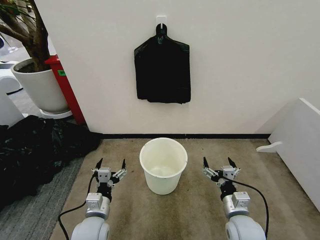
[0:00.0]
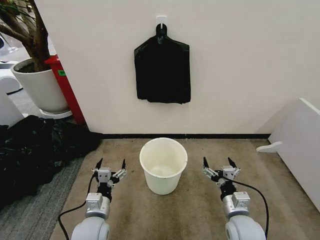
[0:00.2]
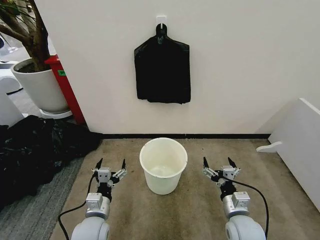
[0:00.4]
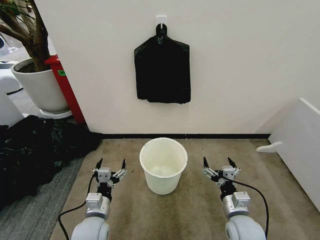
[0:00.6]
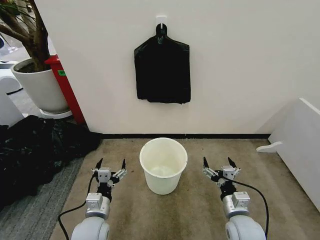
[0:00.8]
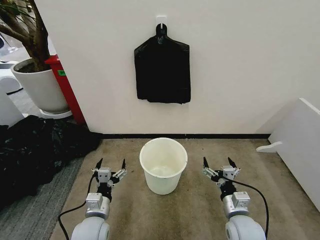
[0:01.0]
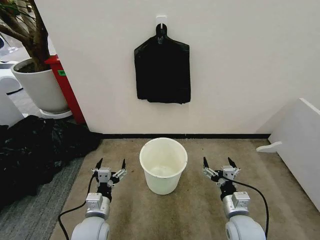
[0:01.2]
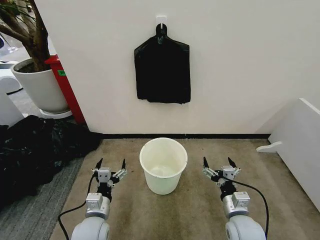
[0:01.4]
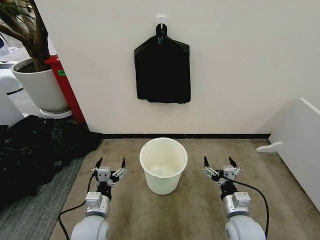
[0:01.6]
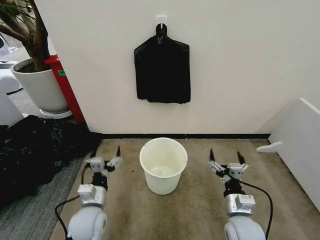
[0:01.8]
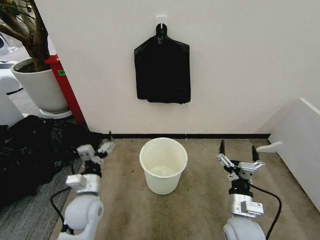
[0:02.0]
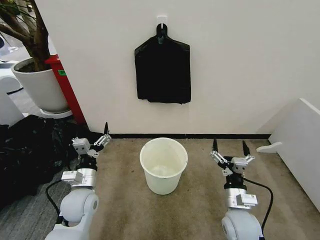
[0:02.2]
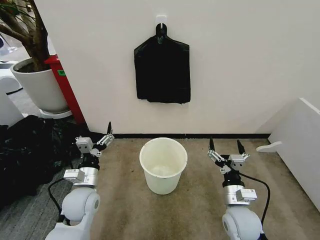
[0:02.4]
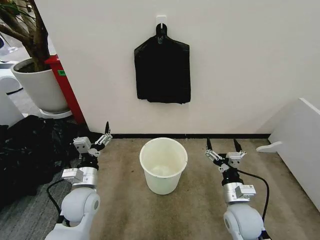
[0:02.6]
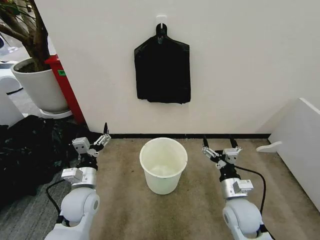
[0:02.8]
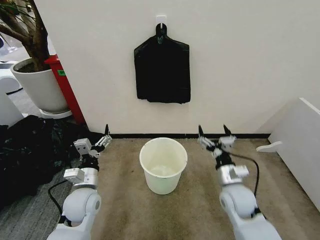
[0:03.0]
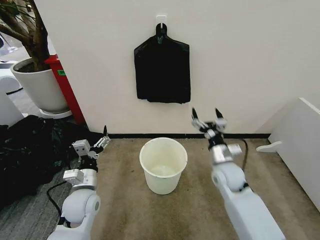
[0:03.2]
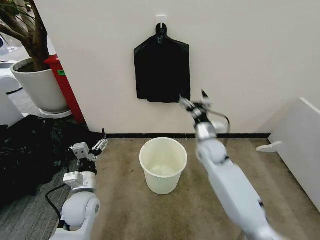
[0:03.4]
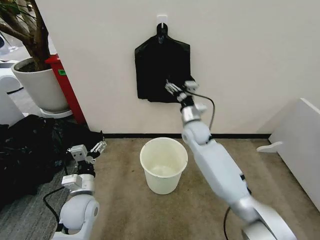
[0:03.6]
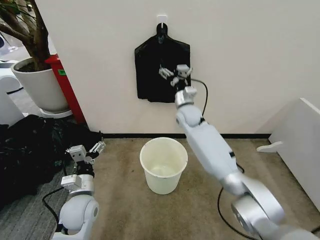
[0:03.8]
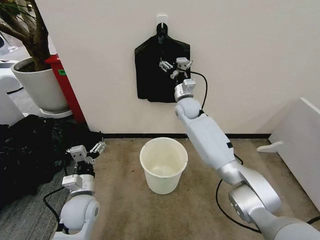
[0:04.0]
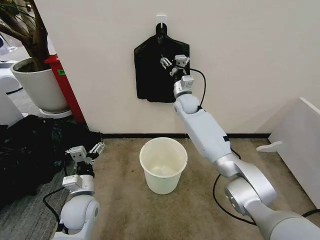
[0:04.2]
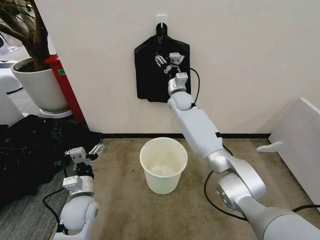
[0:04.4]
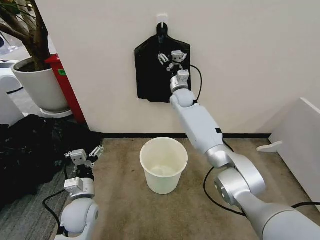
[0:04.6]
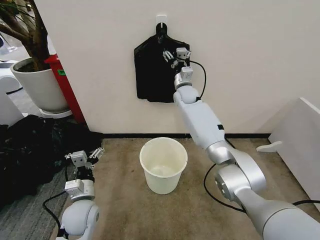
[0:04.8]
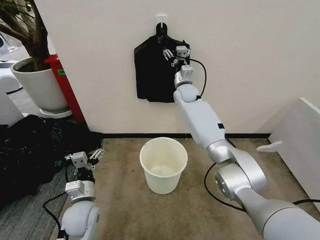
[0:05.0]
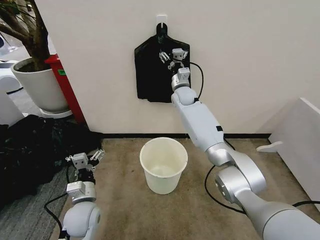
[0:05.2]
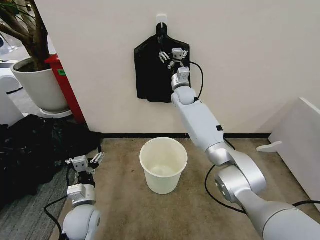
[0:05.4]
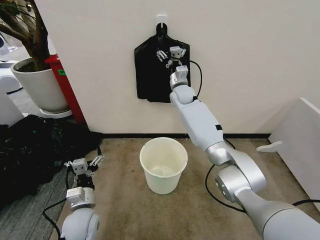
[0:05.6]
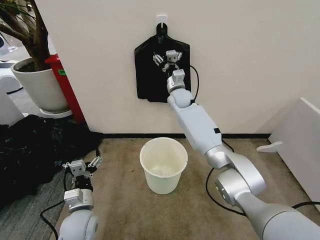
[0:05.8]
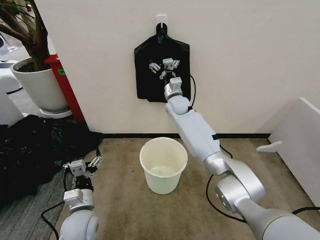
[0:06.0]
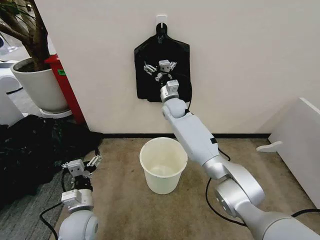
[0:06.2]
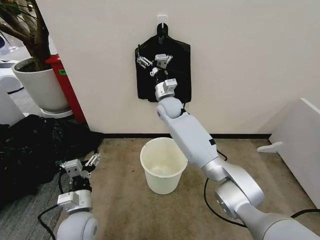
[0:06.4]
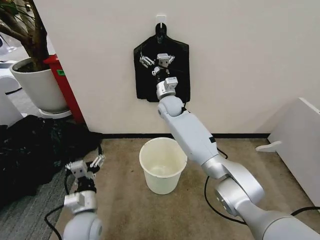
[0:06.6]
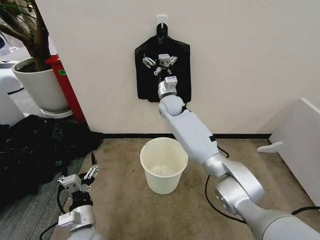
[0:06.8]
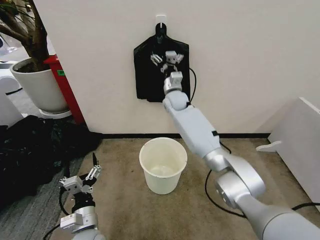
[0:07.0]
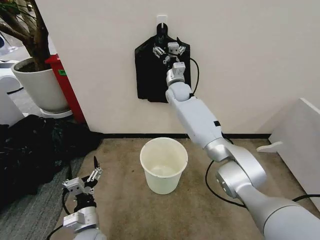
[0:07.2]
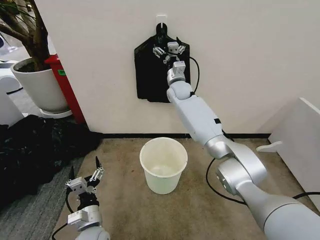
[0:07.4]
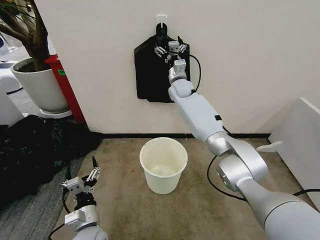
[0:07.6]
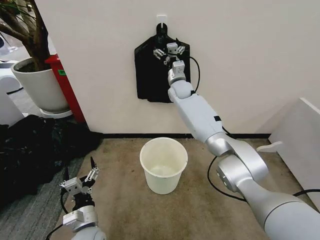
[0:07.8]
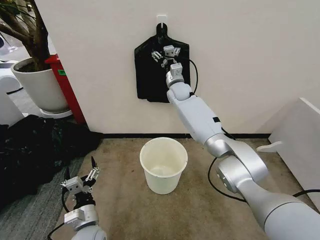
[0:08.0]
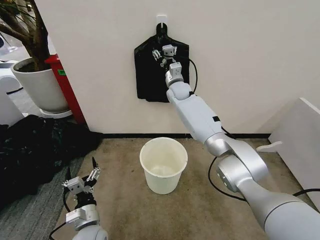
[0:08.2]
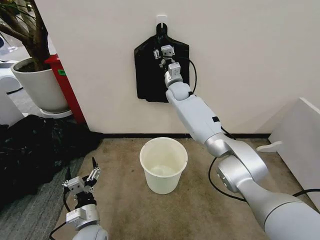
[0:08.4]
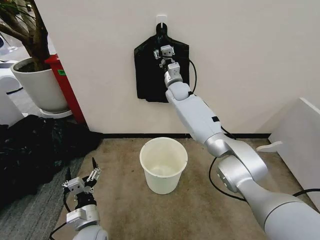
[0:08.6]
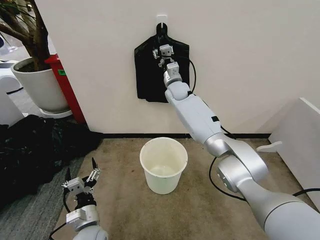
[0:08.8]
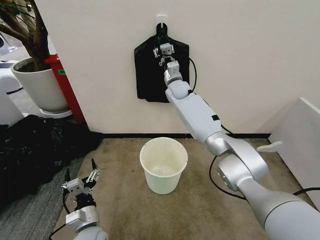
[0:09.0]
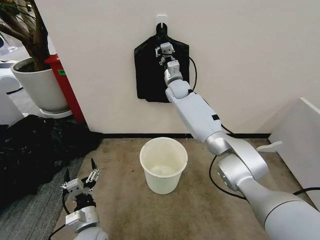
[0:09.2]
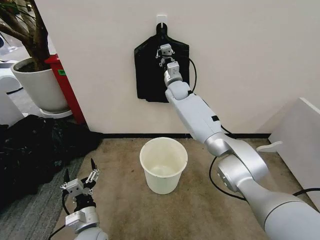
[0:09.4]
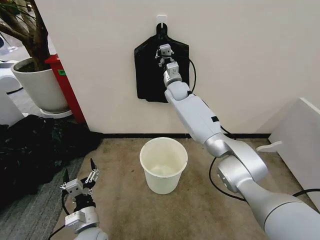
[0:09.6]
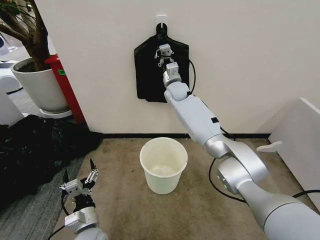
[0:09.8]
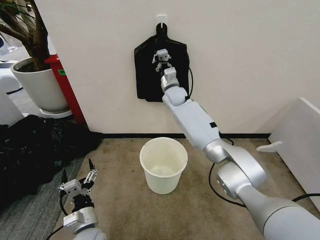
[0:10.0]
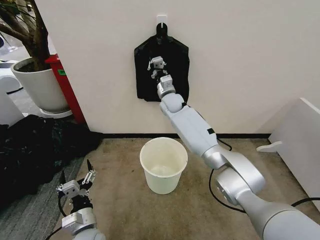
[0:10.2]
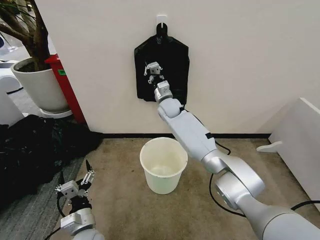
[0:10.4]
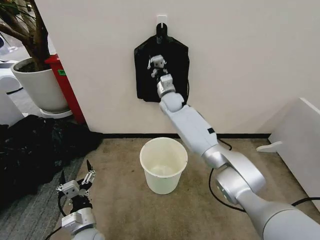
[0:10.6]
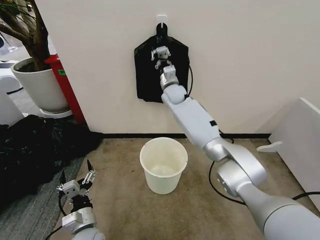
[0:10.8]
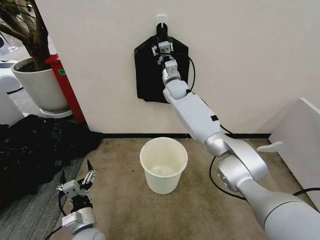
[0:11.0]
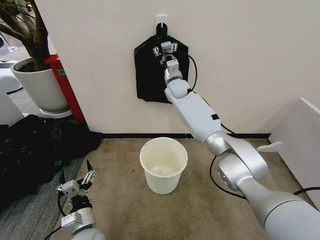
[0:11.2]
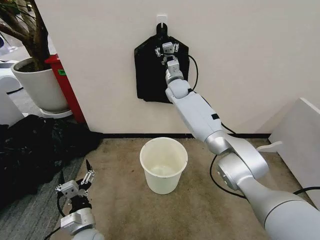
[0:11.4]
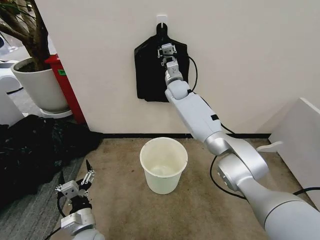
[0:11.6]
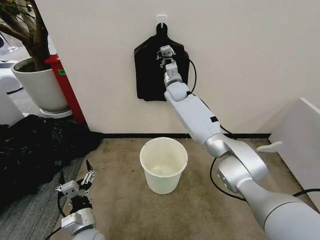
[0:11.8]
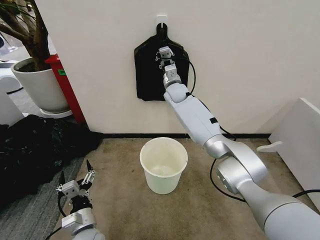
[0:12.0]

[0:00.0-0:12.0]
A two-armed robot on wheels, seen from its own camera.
Task of the whole recording: Place the garbage bag over the trash bin.
0:01.6 to 0:03.0: The right gripper heads forward, covering approximately 10 cm. Meanwhile the left gripper goes approximately 10 cm forward and upward.
0:03.0 to 0:04.4: The right gripper is displaced forward, to the left and upward by approximately 40 cm.
0:04.4 to 0:06.0: There are only small adjustments of the grippers.
0:06.0 to 0:07.6: The right gripper heads upward, covering some 5 cm. The left gripper moves about 5 cm.
0:07.6 to 0:09.0: The right gripper closes its fingers.
0:09.0 to 0:10.4: The right gripper heads downward, covering approximately 5 cm, and closes its fingers.
0:10.4 to 0:12.0: The right gripper changes place by about 5 cm, and opens and closes again.

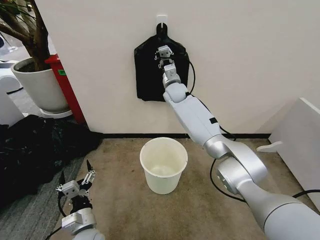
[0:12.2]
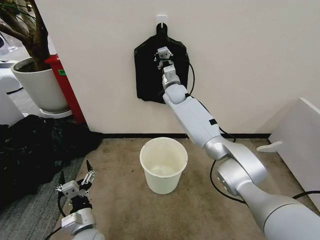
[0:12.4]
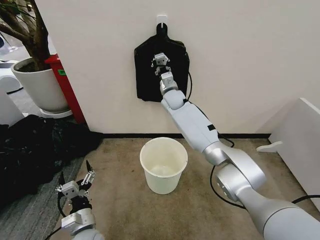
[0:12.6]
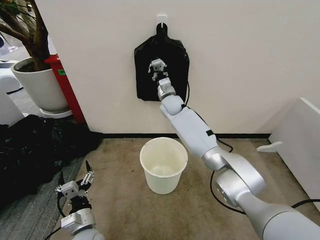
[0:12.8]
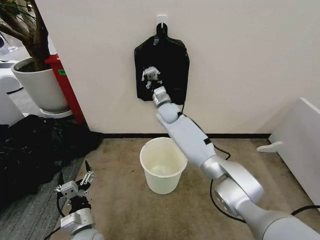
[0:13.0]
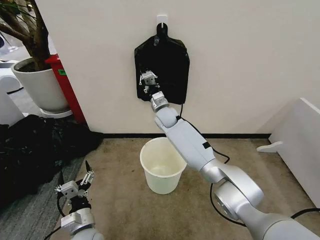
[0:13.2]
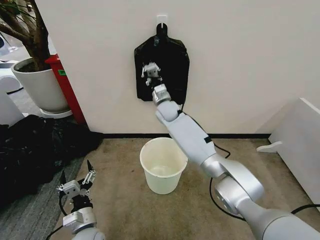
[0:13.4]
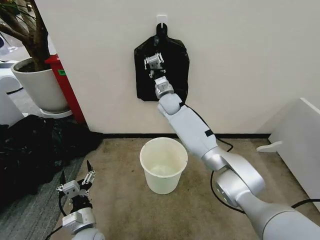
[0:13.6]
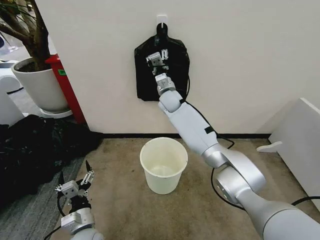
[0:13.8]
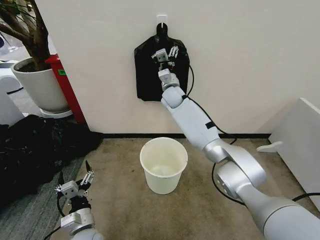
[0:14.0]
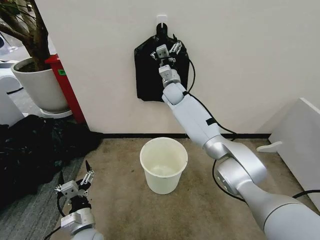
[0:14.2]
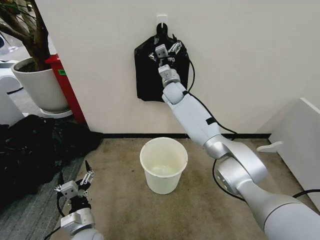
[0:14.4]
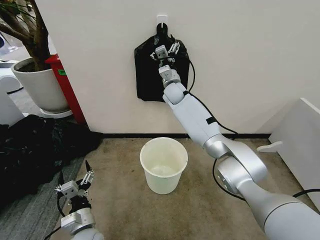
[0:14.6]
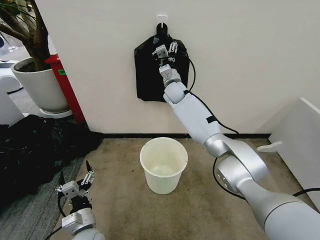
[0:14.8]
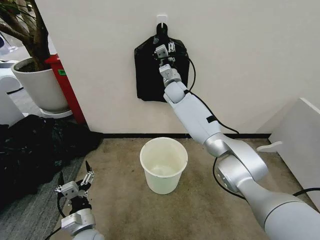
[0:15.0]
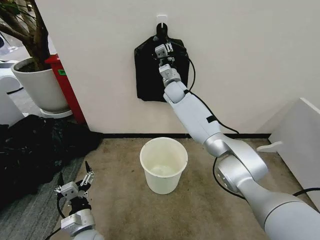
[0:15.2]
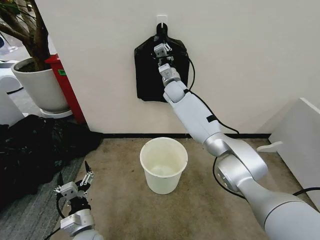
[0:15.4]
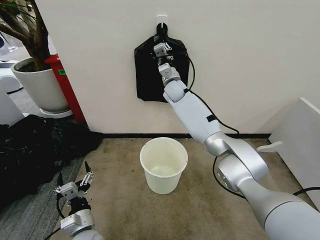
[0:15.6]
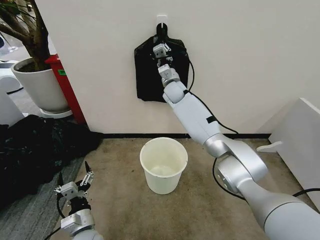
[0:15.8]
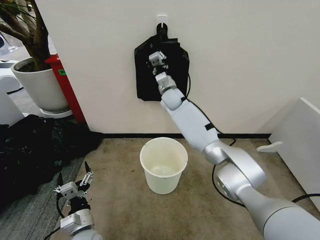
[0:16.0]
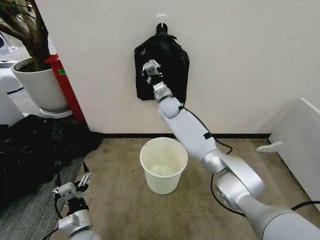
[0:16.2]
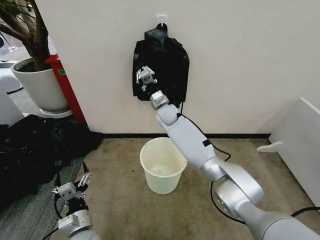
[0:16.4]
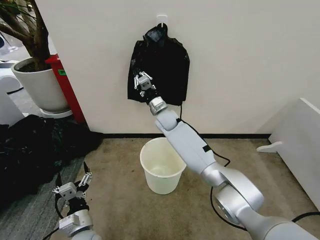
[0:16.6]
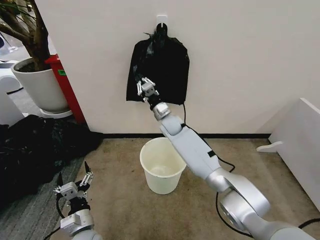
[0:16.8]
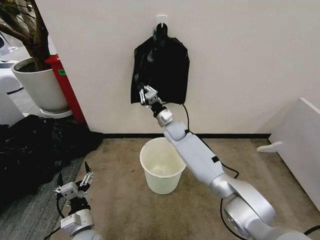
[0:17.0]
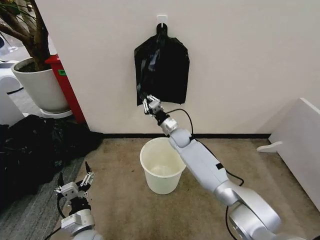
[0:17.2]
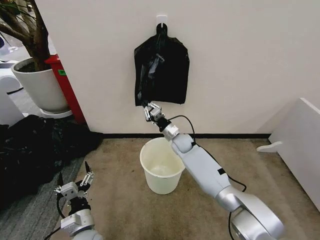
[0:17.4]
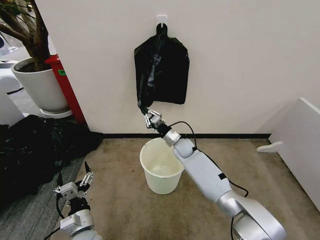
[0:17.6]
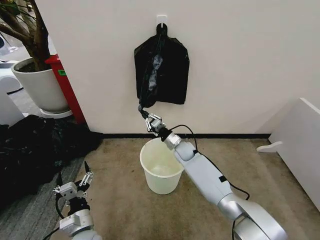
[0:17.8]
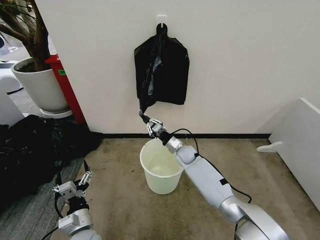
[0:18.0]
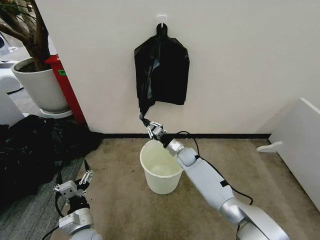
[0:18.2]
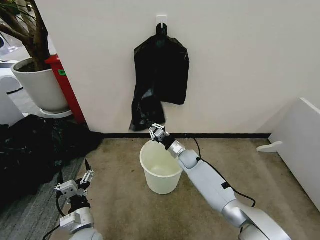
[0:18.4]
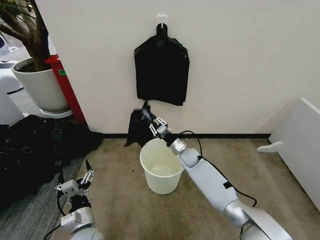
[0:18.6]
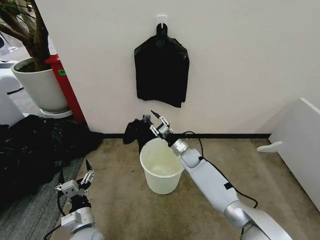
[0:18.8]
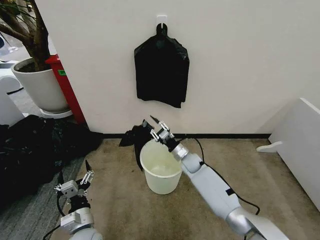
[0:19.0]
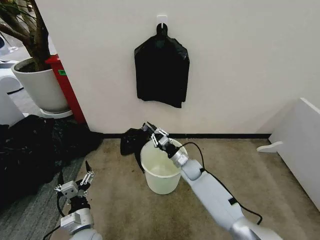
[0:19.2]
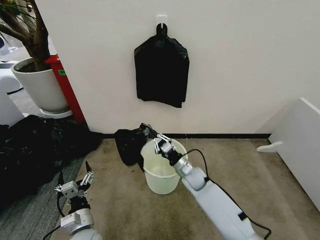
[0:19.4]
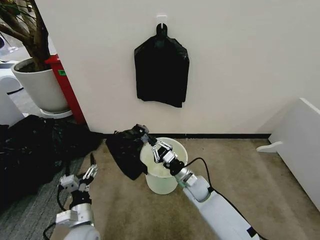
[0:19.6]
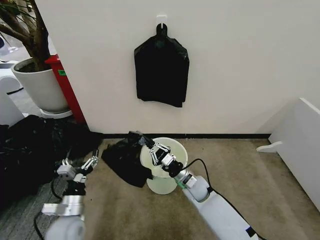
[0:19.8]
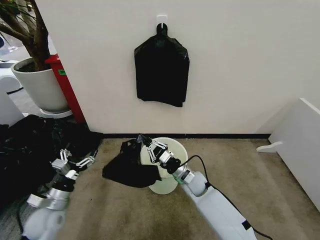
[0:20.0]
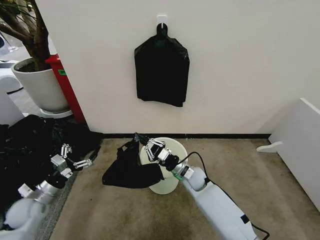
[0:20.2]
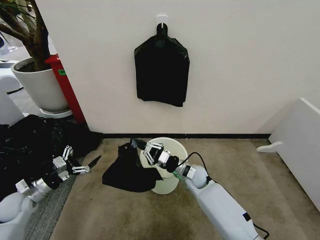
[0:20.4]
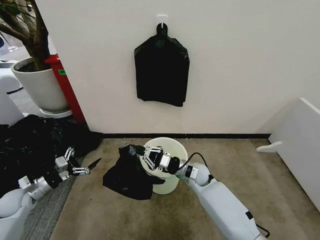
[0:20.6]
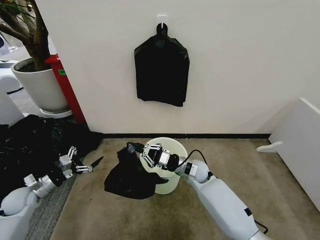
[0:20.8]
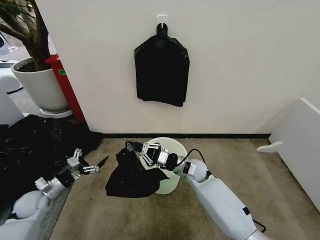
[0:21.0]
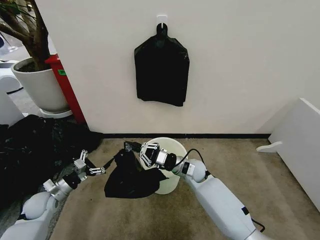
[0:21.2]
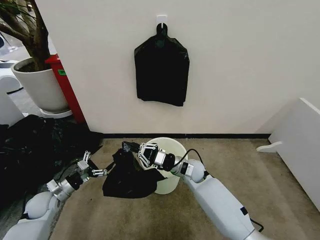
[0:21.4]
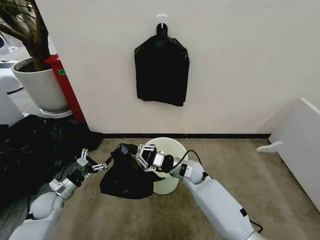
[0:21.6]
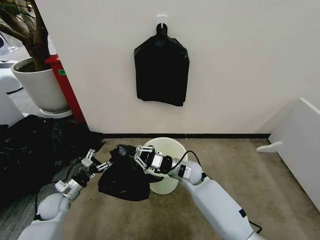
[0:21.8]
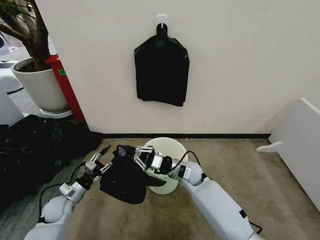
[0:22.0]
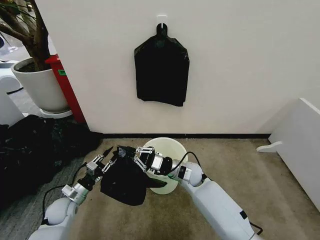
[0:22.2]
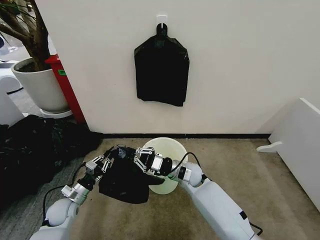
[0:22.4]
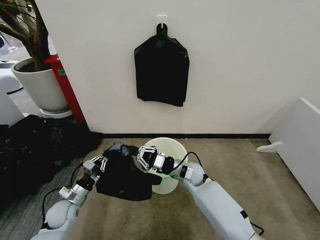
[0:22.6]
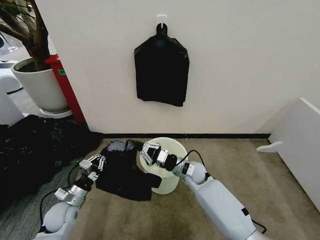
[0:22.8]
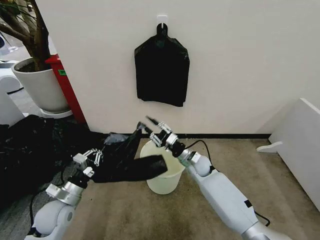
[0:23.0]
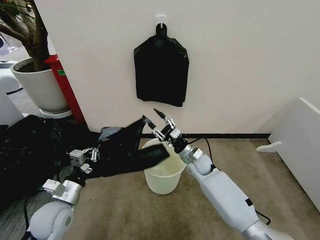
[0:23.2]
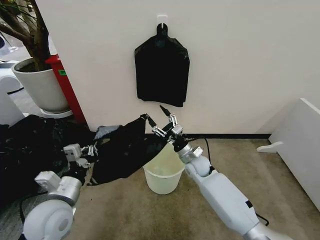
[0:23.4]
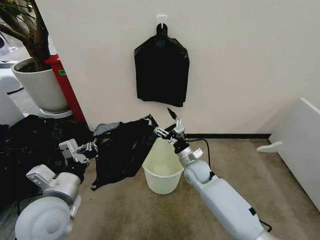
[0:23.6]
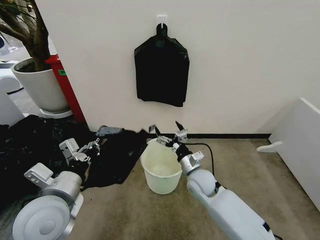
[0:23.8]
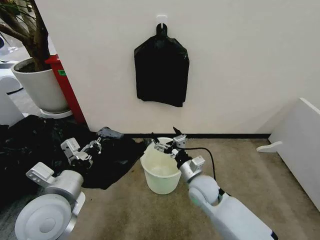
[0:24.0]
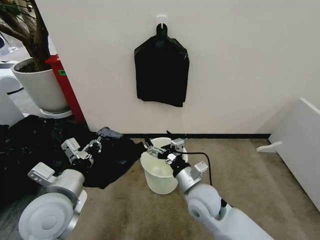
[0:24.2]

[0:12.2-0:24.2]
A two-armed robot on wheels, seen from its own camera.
Task of the whole recording: Place the garbage bag over the trash bin.
0:12.2 to 0:13.8: The right gripper travels downward and back again, roughly 10 cm each way, and opens its fingers.
0:13.8 to 0:15.2: The right gripper opens, then closes again.
0:15.2 to 0:16.6: The right gripper heads downward and backward, covering approximately 10 cm.
0:16.6 to 0:18.2: The right gripper goes some 20 cm downward, to the right and backward.
0:18.2 to 0:19.8: The left gripper ends up roughly 5 cm from where it was; the right gripper travels backward by approximately 15 cm, and opens, then closes again.
0:19.8 to 0:21.2: The right gripper heads forward, covering roughly 5 cm, while the left gripper shifts roughly 15 cm to the left and forward.
0:21.2 to 0:22.6: The left gripper shifts approximately 10 cm to the right, and closes.
0:22.6 to 0:24.2: The left gripper moves upward and to the right, approximately 25 cm. The right gripper travels backward and upward by some 15 cm, and opens.
